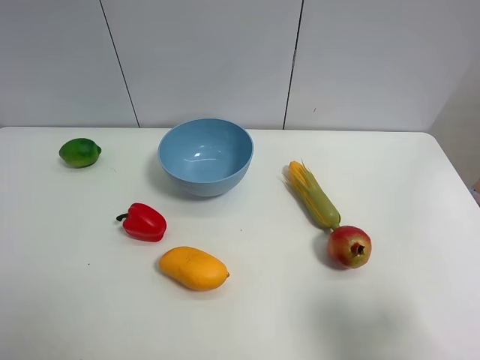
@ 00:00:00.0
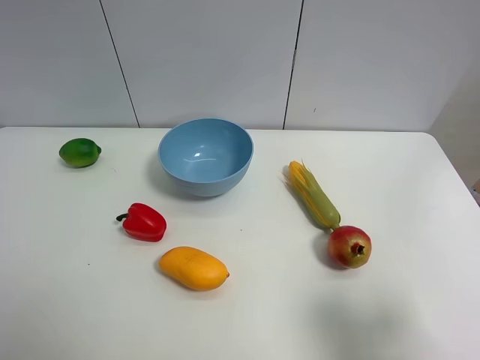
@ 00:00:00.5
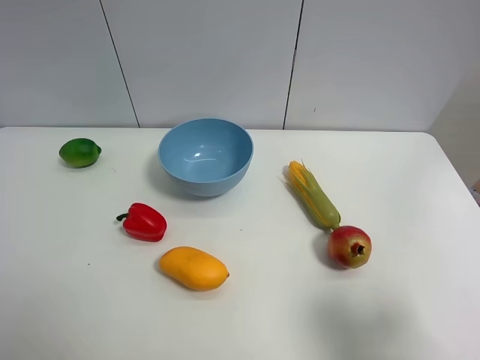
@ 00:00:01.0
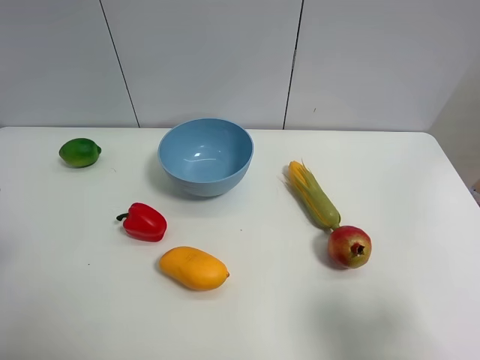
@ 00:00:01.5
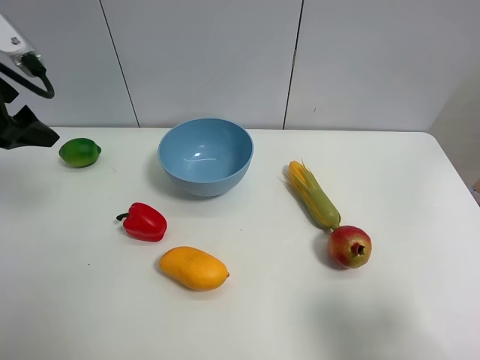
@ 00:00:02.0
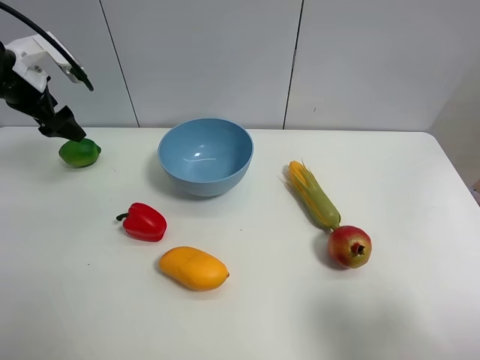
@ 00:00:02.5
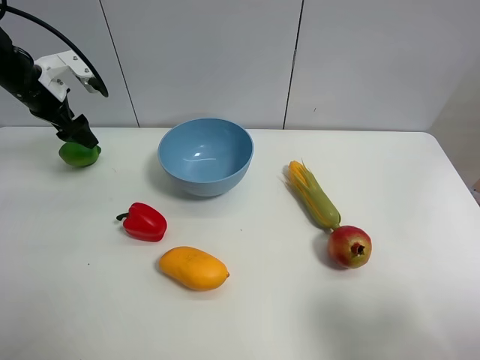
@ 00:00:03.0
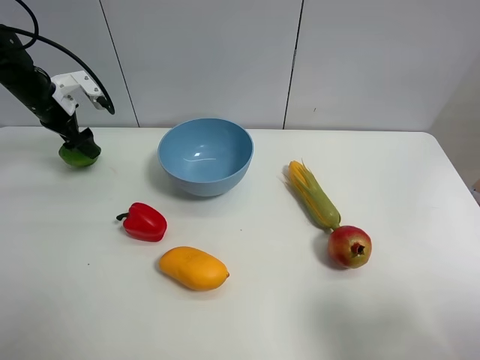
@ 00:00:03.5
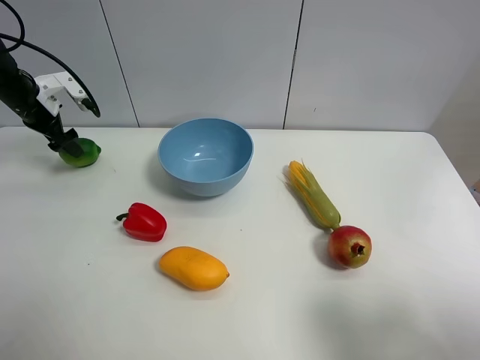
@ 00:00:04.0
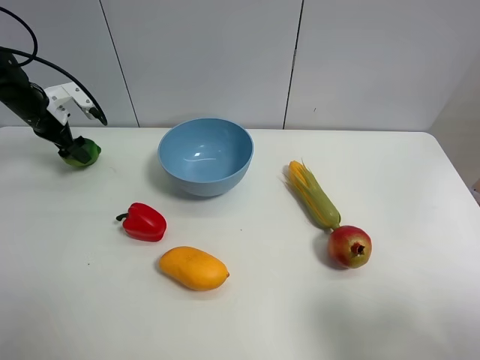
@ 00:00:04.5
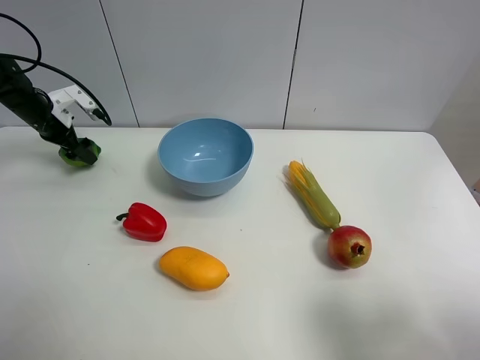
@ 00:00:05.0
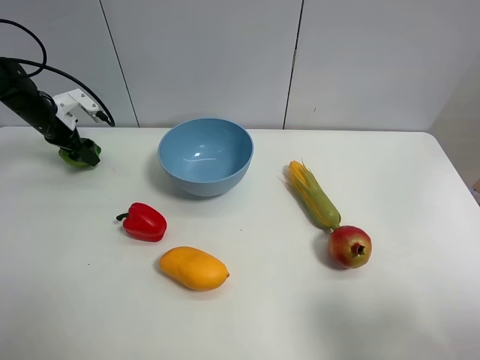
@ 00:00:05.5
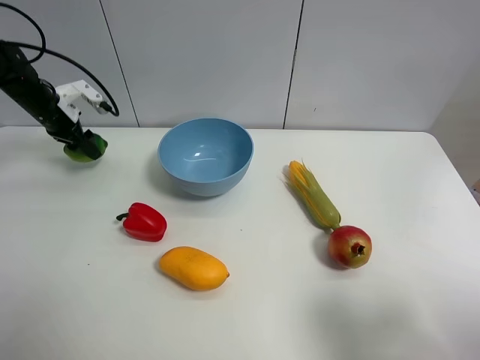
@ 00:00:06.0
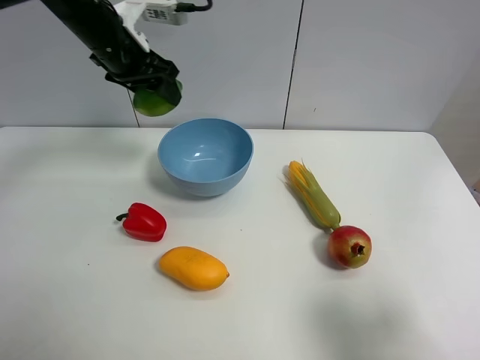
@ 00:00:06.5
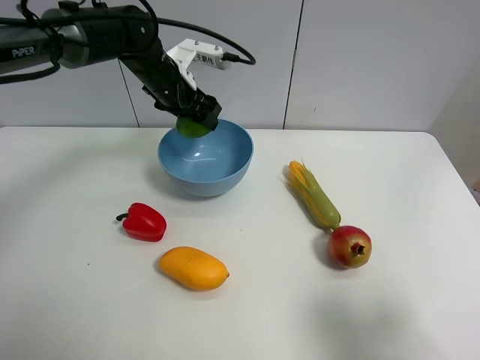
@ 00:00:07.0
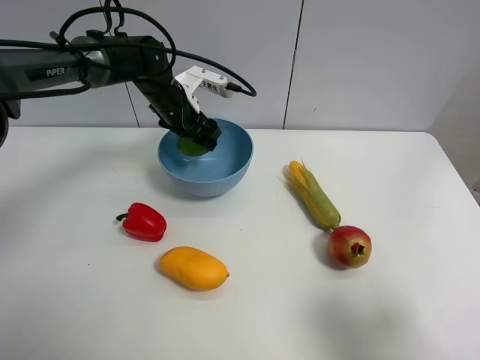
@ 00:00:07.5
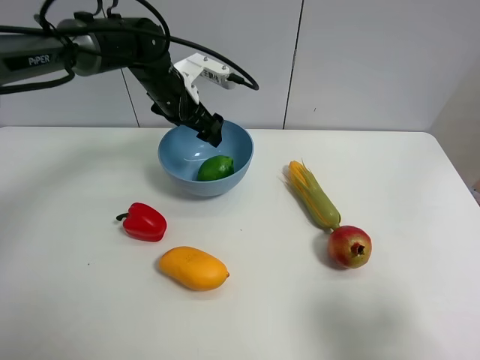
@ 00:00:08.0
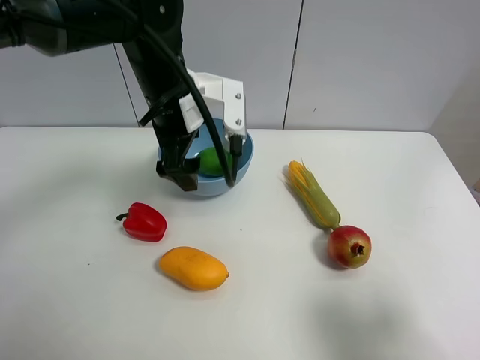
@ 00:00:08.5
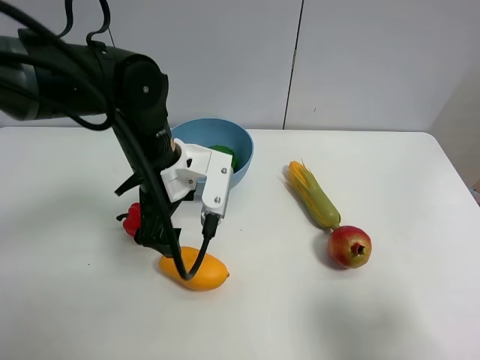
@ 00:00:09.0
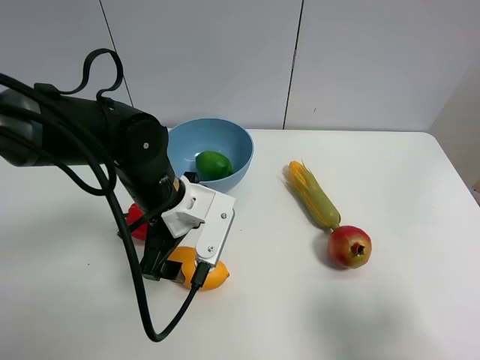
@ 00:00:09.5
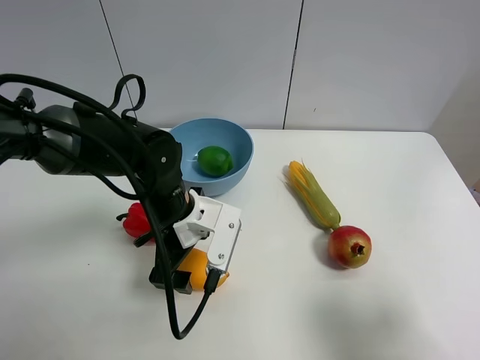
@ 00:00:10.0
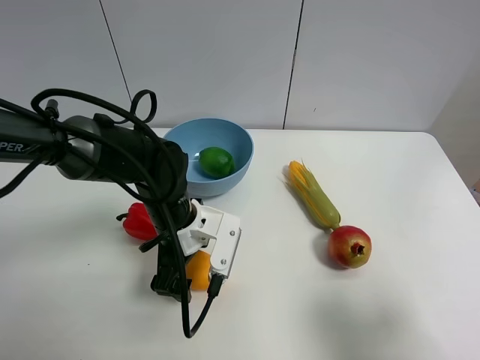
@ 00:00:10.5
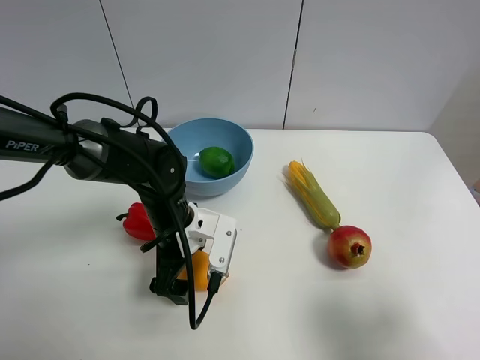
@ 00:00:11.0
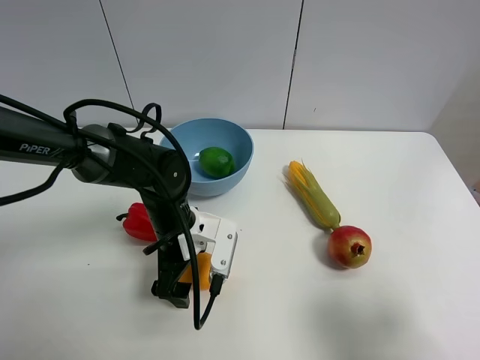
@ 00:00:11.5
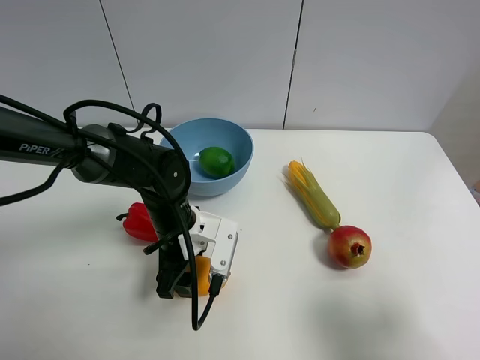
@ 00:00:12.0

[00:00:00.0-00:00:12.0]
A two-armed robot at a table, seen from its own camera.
Task of the whole recording: Put the three fruits on the table into a bowl.
Step, 00:00:00.0 to 00:00:05.5: Grasp the green lemon with left gripper.
Step, 00:00:06.0 to 00:00:08.0: Place the green lemon in the blue bowl with left gripper.
Step, 00:00:08.5 to 00:00:11.5: Grasp the mango with left gripper.
00:00:00.0 to 00:00:02.0: The left gripper shifts about 30 cm forward.
00:00:02.0 to 00:00:04.0: The left gripper heads forward, downward and to the left, covering about 25 cm.
00:00:04.0 to 00:00:06.0: The left gripper closes up.
00:00:06.0 to 00:00:08.0: The left gripper is displaced to the right by approximately 25 cm, and opens its fingers.
00:00:08.0 to 00:00:10.0: The left gripper travels backward by about 20 cm.
00:00:10.0 to 00:00:12.0: The left gripper closes its fingers.

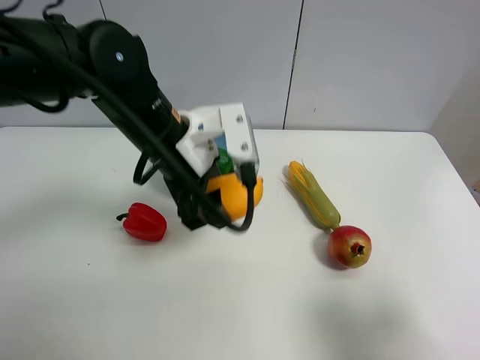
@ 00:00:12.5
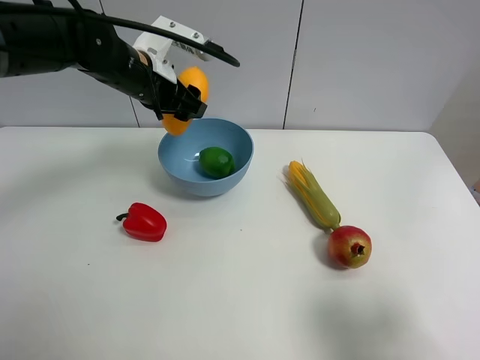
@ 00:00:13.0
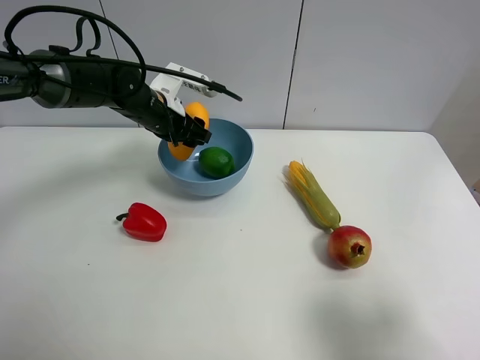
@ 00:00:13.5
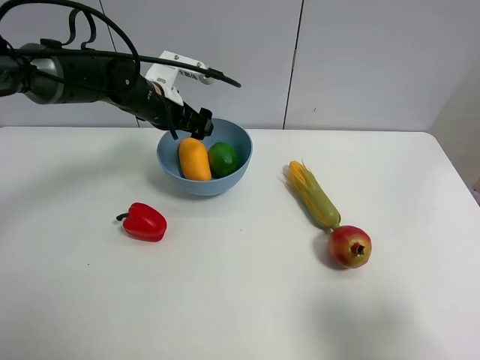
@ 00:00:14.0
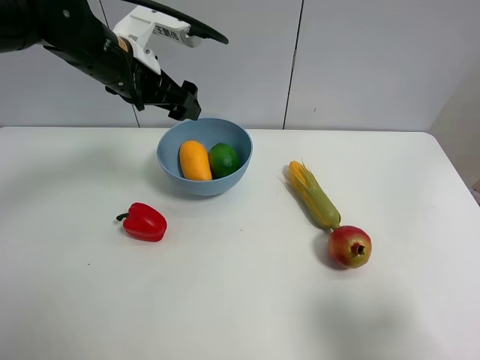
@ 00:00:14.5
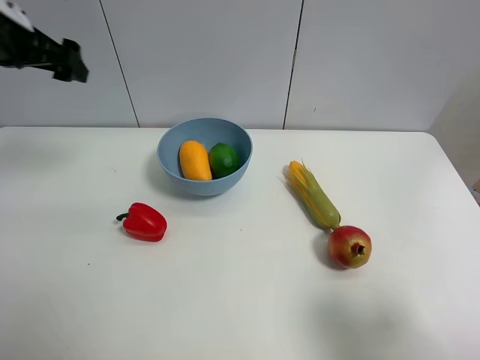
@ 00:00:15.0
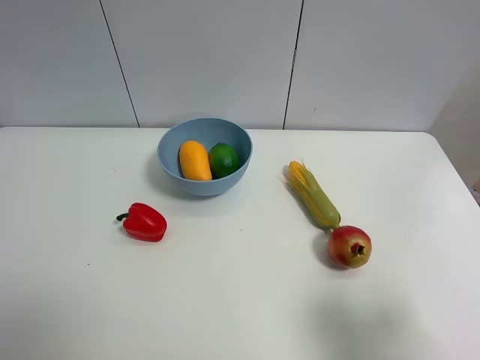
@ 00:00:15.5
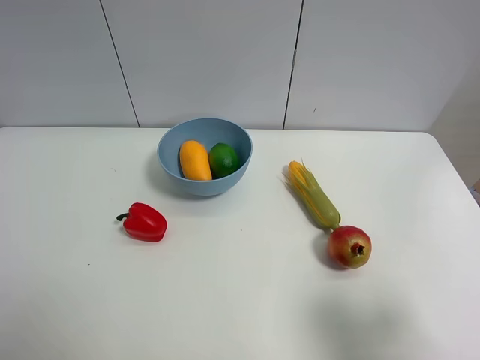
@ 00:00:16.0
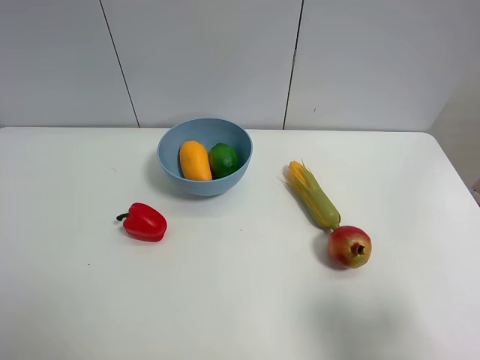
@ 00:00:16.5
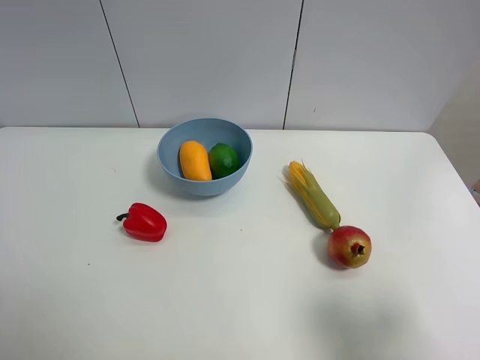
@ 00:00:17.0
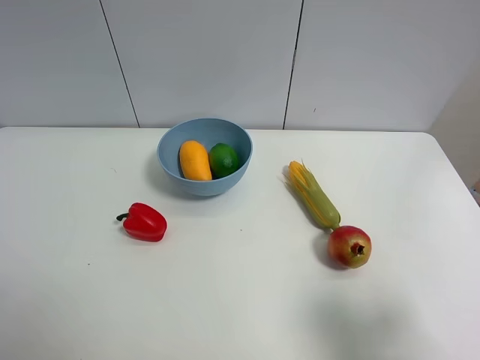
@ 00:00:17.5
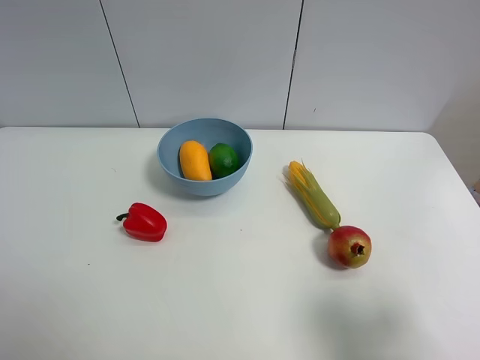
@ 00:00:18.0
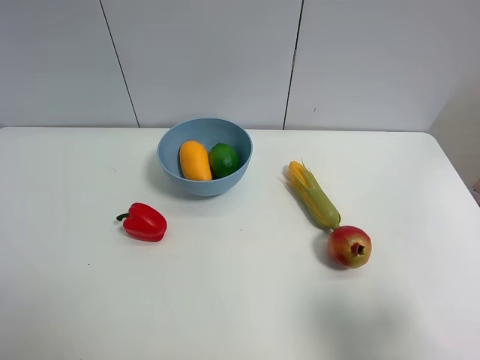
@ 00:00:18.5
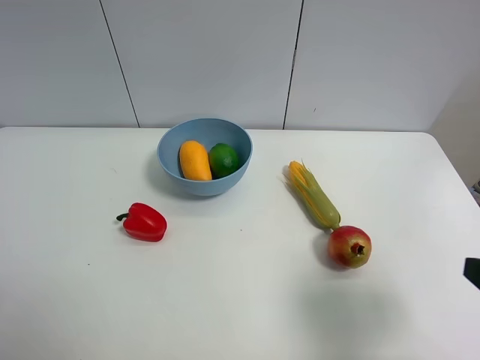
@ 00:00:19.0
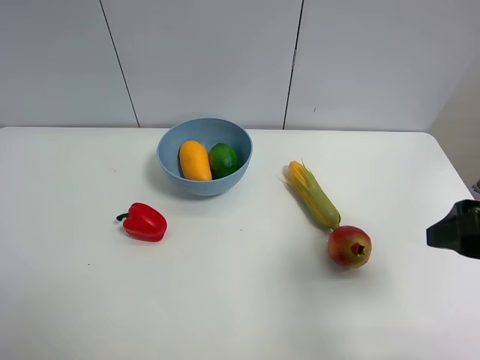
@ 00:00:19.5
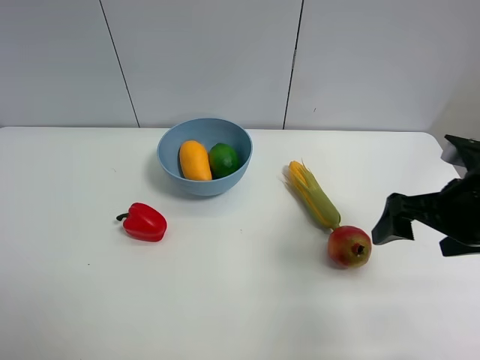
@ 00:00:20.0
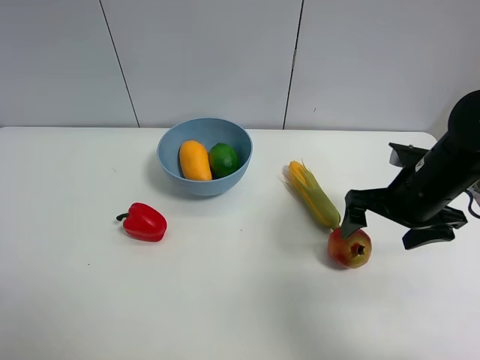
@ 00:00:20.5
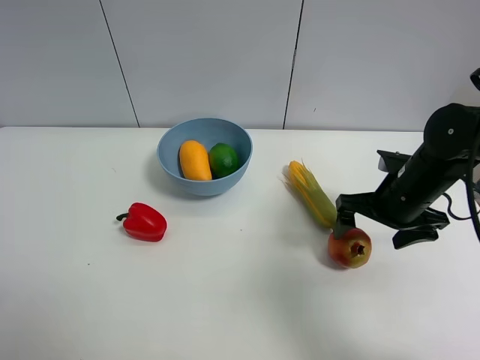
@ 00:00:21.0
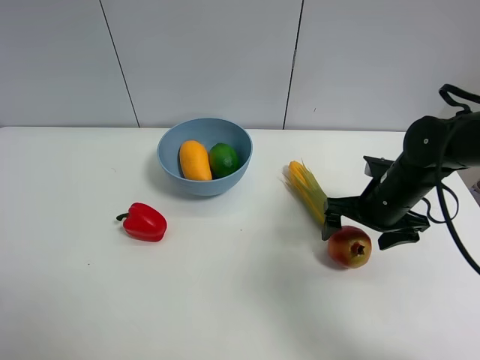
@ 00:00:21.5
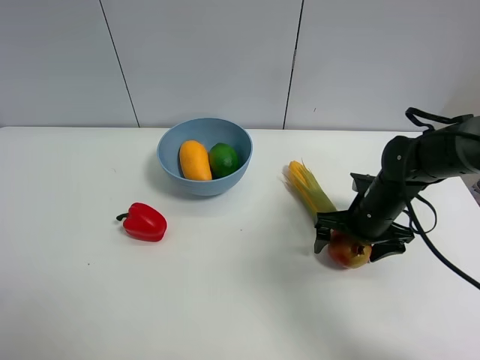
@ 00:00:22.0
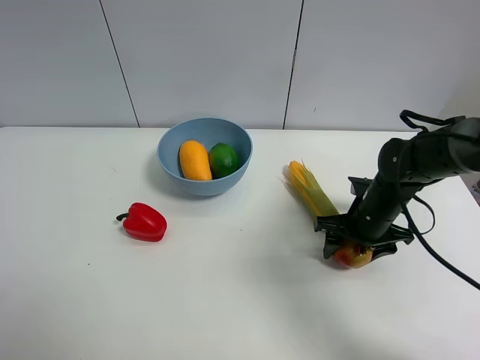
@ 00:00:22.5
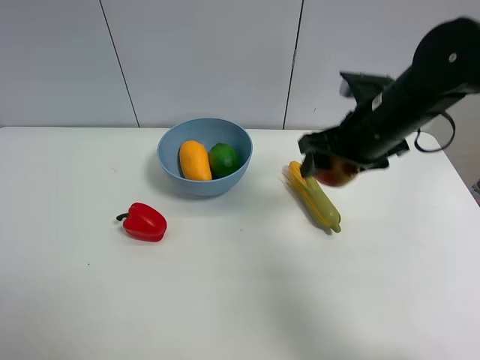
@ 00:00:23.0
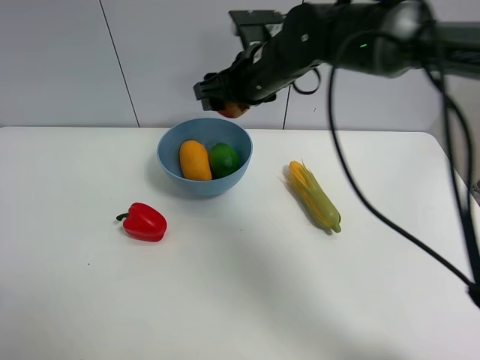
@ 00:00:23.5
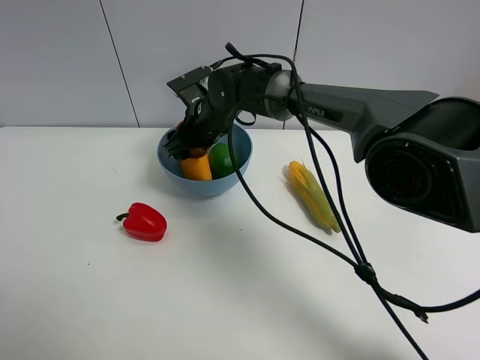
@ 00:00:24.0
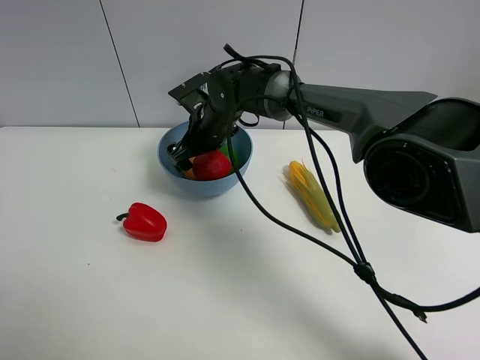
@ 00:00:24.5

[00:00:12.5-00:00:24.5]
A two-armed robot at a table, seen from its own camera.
Task of the whole recording: Put the three fruits on the table into a bowl.
Step, 00:00:12.5 to 00:00:14.0: Place the mango in the blue bowl with left gripper.
Step, 00:00:14.5 to 00:00:22.0: Grasp the pomegranate with right gripper.
00:00:12.5 to 00:00:14.5: The left gripper travels forward and to the left by approximately 10 cm, and opens.
00:00:14.5 to 00:00:16.5: The left gripper heads backward and to the left, covering some 40 cm.
00:00:16.5 to 00:00:18.5: Neither gripper changes place.
00:00:18.5 to 00:00:20.5: The right gripper travels forward by approximately 25 cm.
00:00:20.5 to 00:00:22.5: The right gripper heads downward, covering about 10 cm, and closes.
00:00:22.5 to 00:00:24.5: The right gripper heads to the left and forward, covering about 30 cm, and opens.

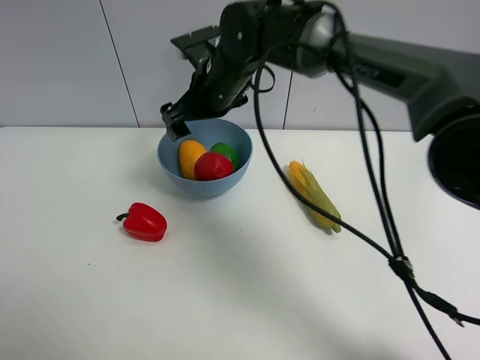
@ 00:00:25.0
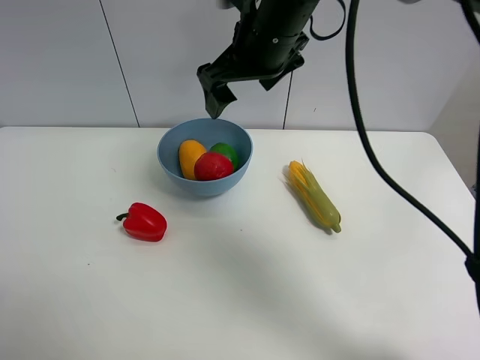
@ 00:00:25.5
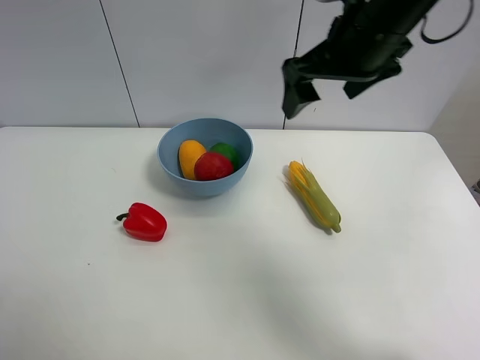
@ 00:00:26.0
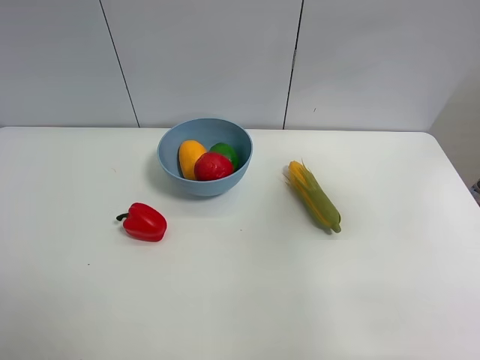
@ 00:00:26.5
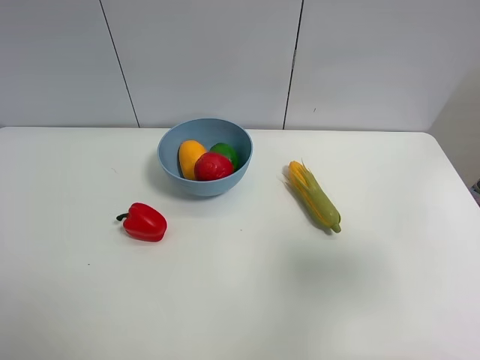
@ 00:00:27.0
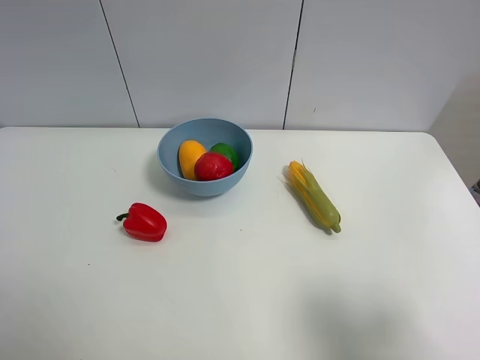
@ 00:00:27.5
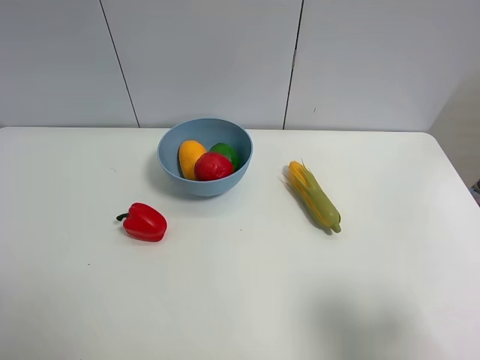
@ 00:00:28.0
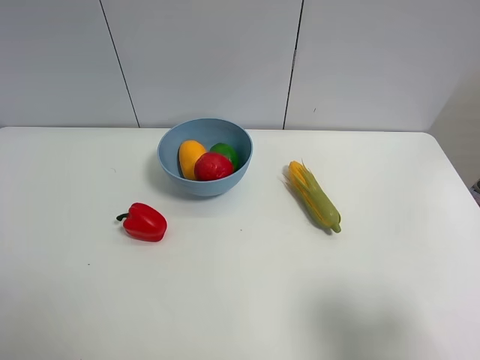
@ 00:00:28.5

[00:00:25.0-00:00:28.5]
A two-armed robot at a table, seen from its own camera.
Task of the whole recording: Put the three fruits on the table into a bowl.
00:00:25.0 to 00:00:27.0: The right gripper travels to the right and backward by approximately 50 cm.
00:00:27.0 to 00:00:28.5: The right gripper moves downward and backward, roughly 10 cm.
